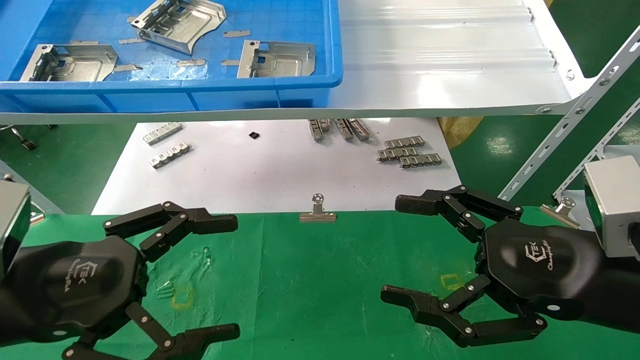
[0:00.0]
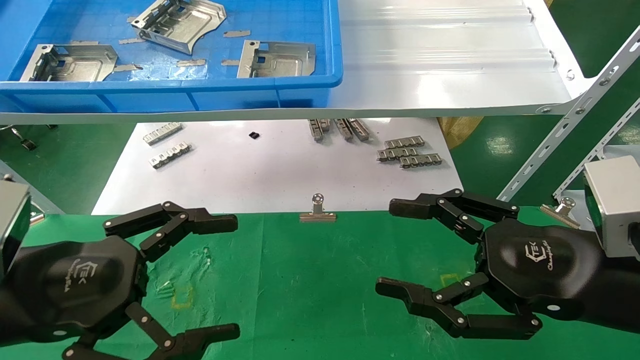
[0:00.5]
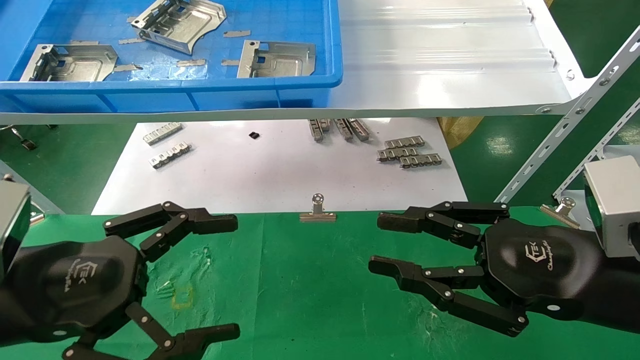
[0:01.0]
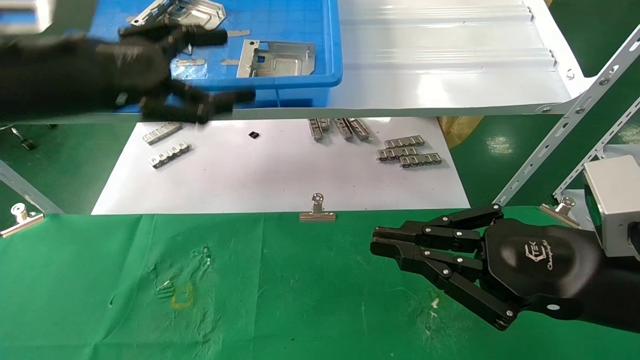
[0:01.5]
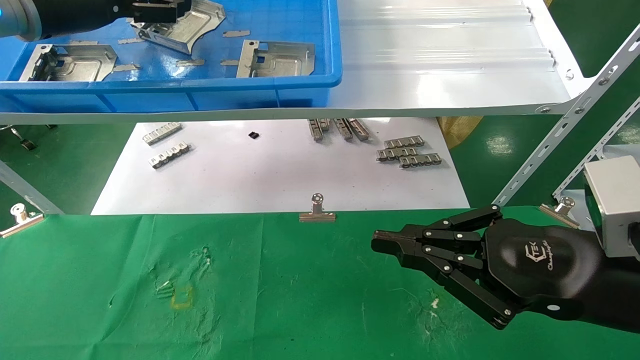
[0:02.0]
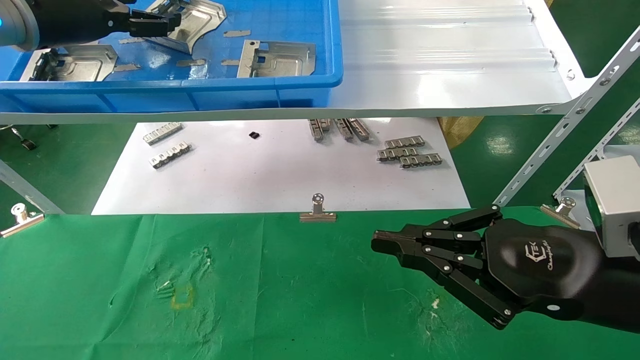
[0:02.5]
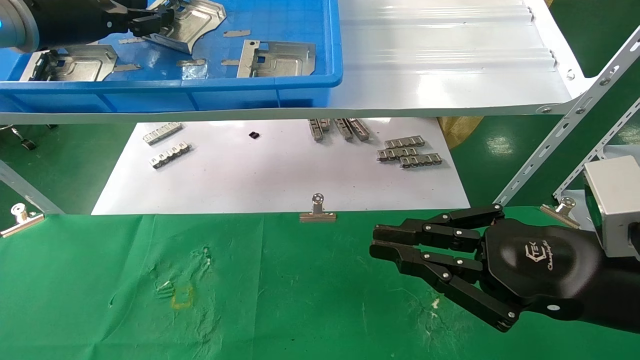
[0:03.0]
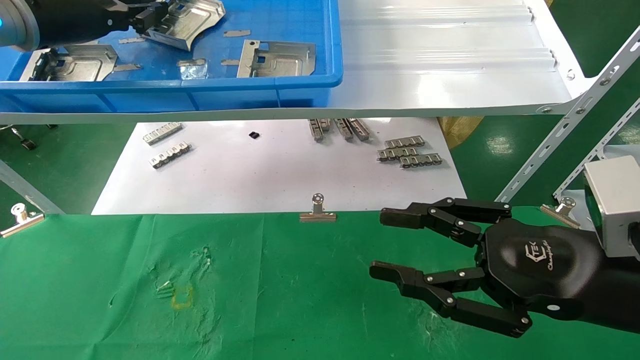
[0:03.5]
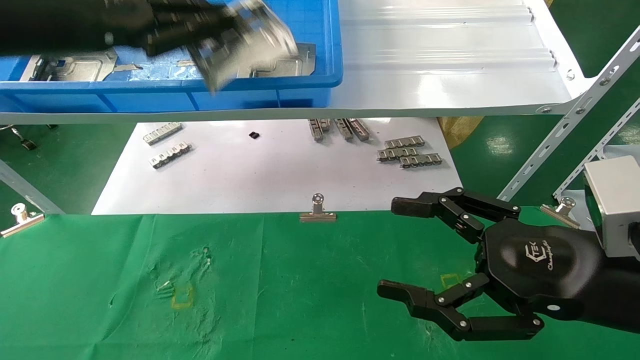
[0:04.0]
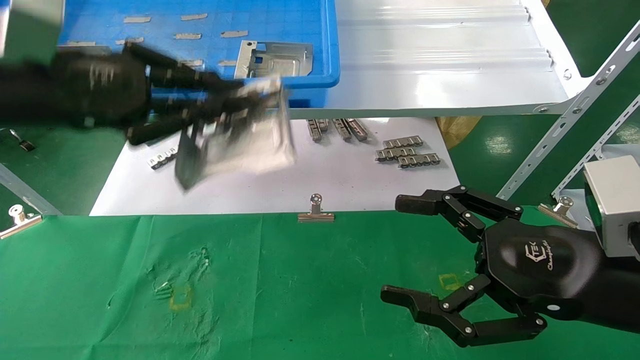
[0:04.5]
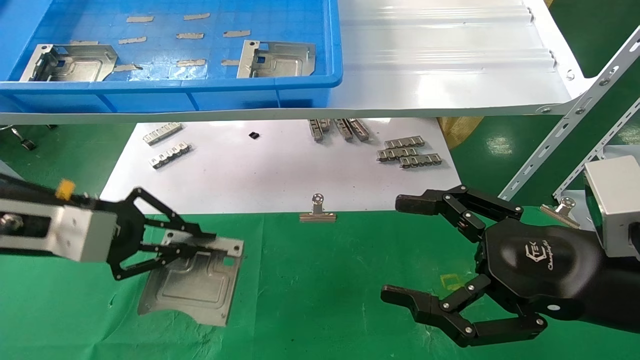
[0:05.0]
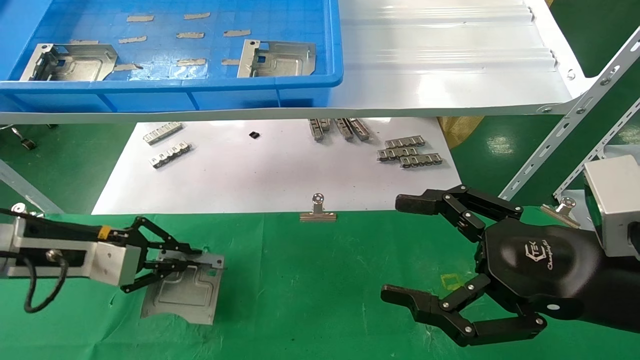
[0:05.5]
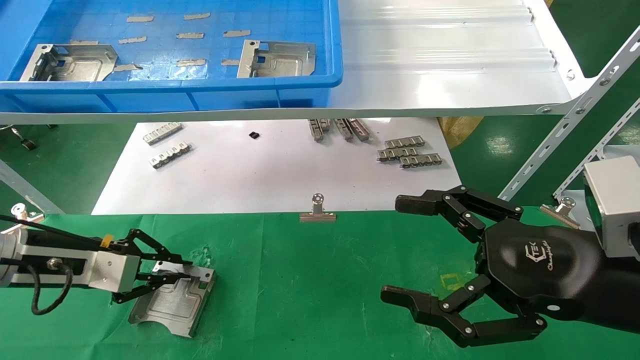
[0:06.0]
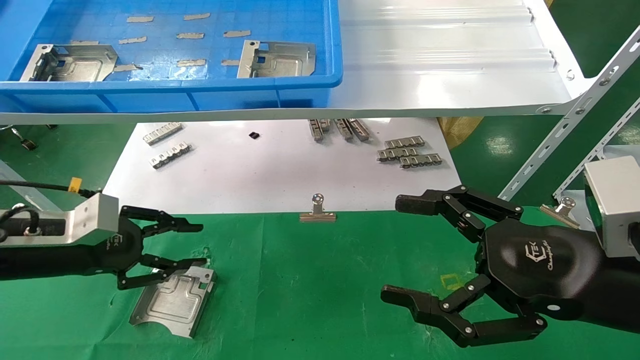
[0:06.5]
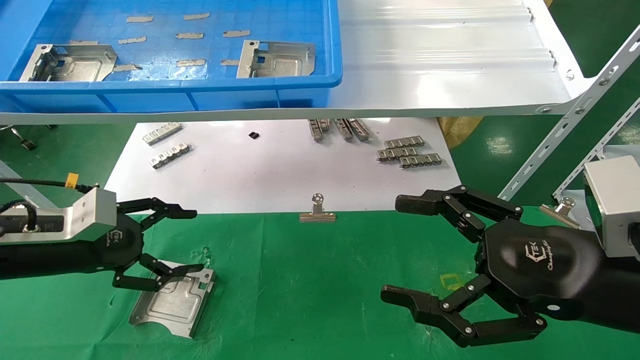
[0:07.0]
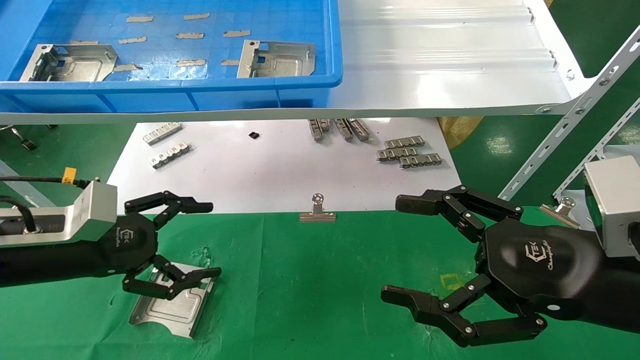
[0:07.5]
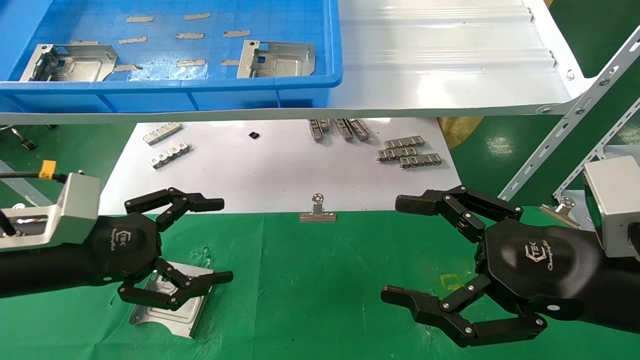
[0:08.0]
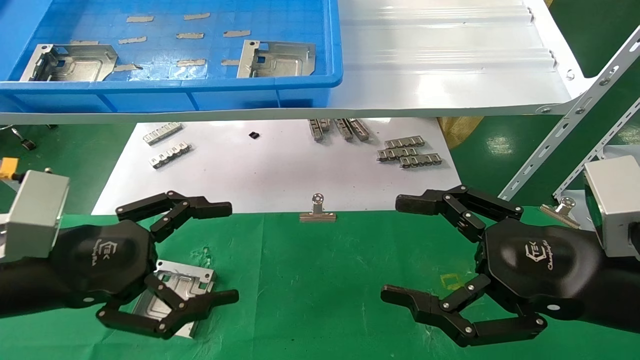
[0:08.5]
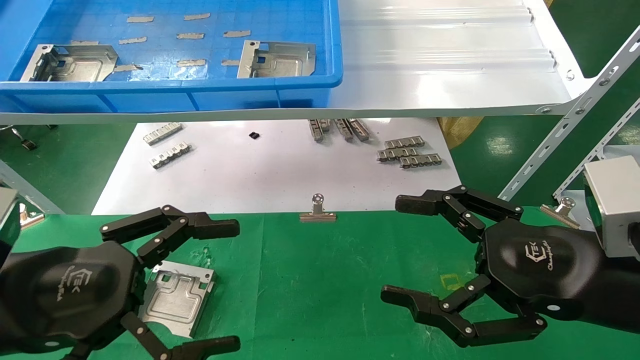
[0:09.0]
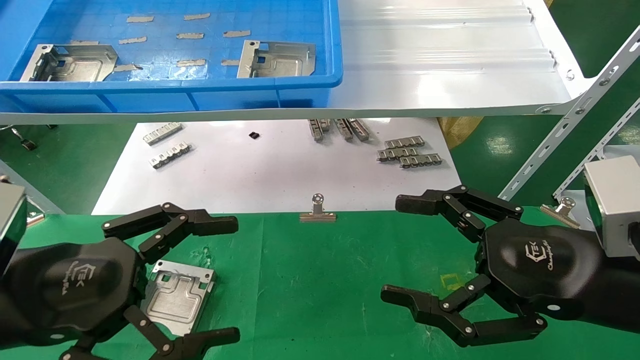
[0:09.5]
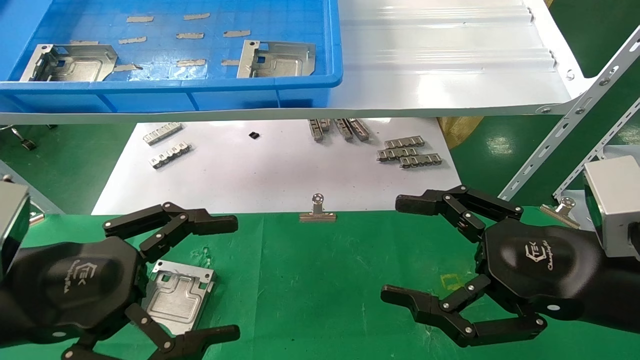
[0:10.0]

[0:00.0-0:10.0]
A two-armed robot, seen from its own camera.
Task of the whole recording: use the mechanical arm to pick up the parts and place them on the table.
Step, 0:01.5 to 0:03.5: Pick up the hard drive bracket from the feeding area.
Step, 0:04.0 to 0:06.0: Place the hard drive bracket into the box.
0:00.0 to 0:02.0: The left gripper goes about 30 cm upward and forward; the right gripper closes.
0:02.0 to 0:04.0: The left gripper shifts about 5 cm backward, and closes; the right gripper opens its fingers.
0:04.0 to 0:06.0: The left gripper moves downward, some 25 cm.
0:06.0 to 0:08.0: The left gripper goes roughly 10 cm backward and to the right, and opens.
0:08.0 to 0:10.0: The left gripper goes some 10 cm backward.

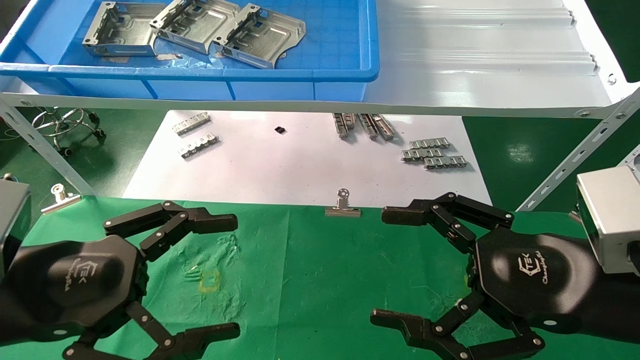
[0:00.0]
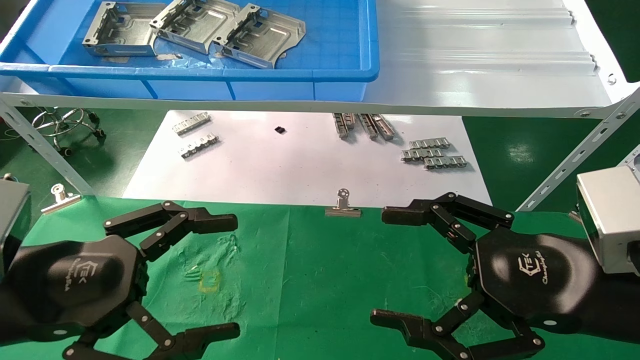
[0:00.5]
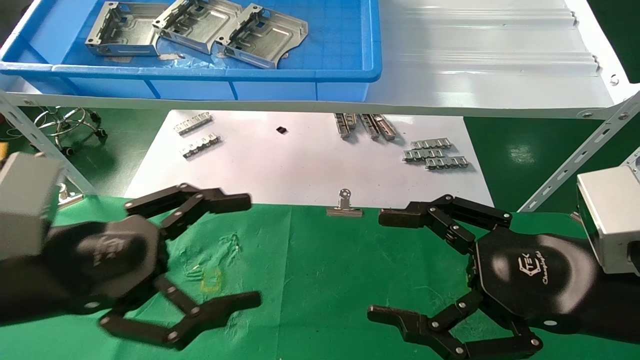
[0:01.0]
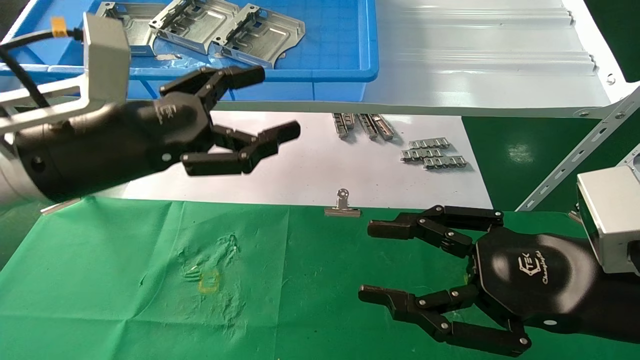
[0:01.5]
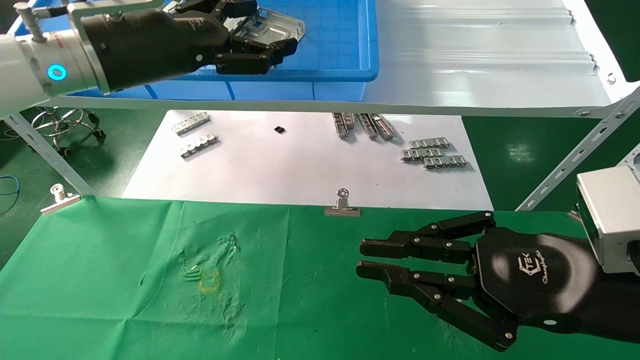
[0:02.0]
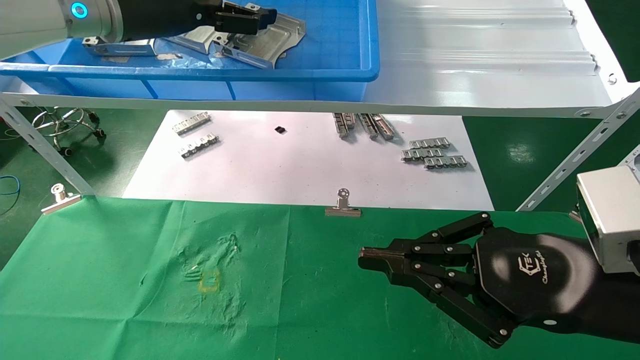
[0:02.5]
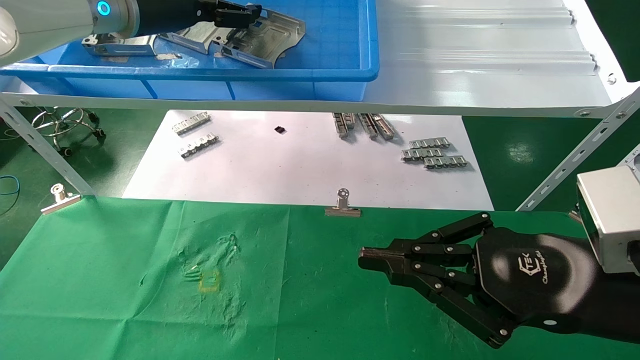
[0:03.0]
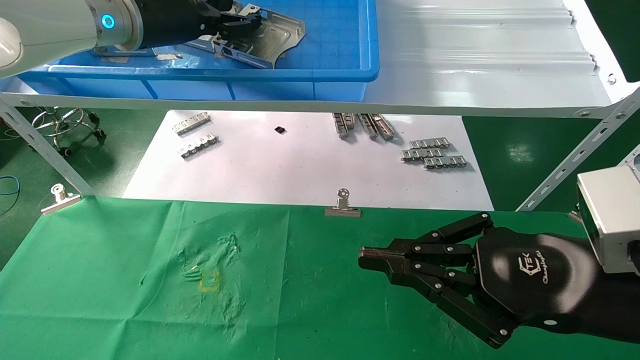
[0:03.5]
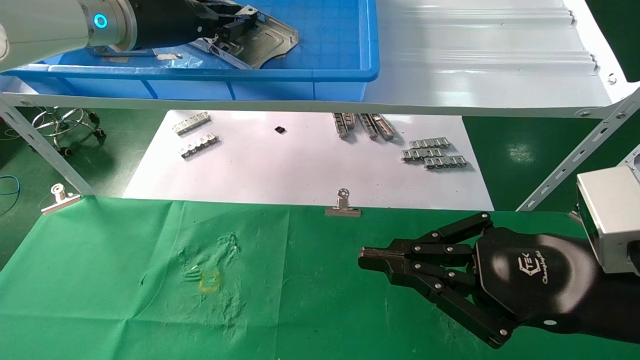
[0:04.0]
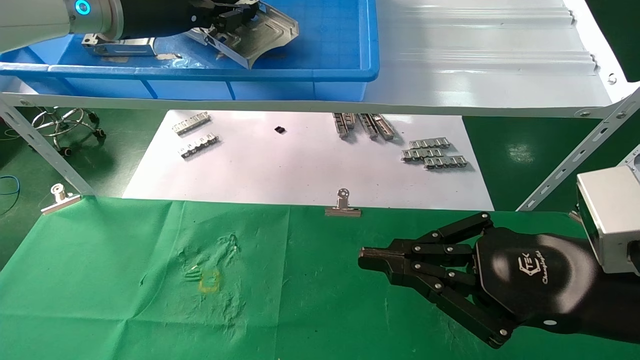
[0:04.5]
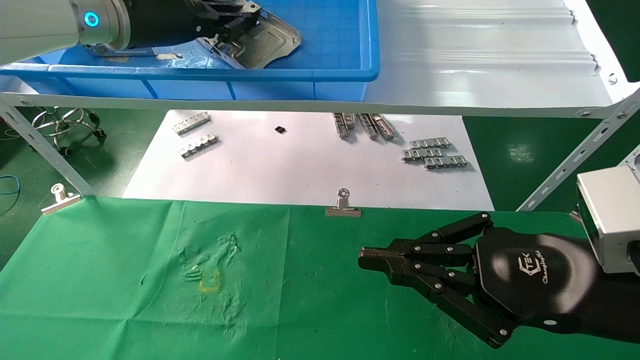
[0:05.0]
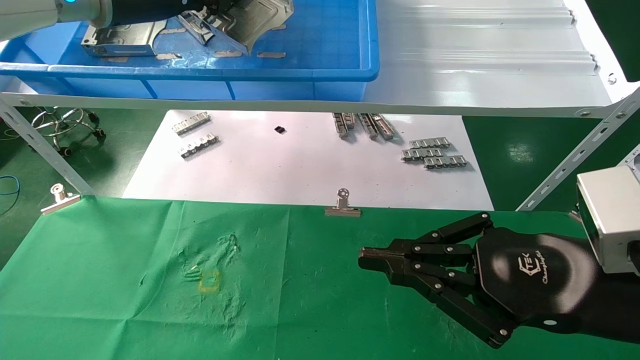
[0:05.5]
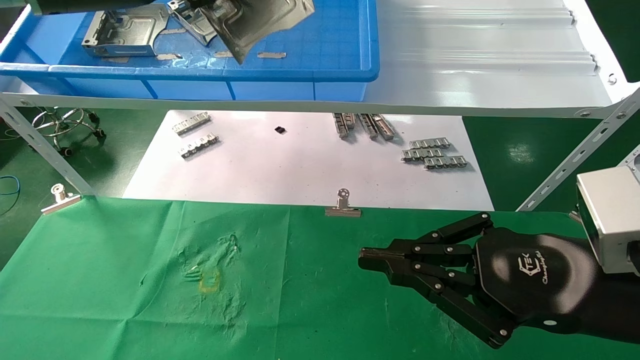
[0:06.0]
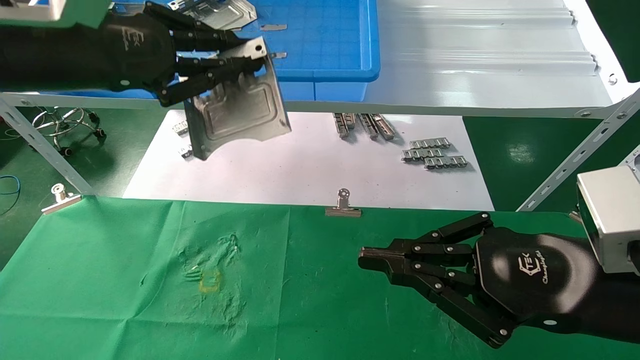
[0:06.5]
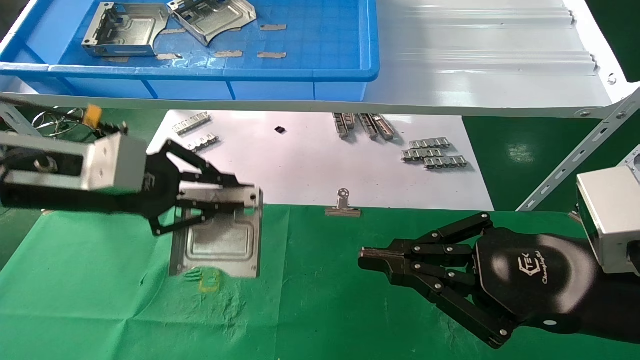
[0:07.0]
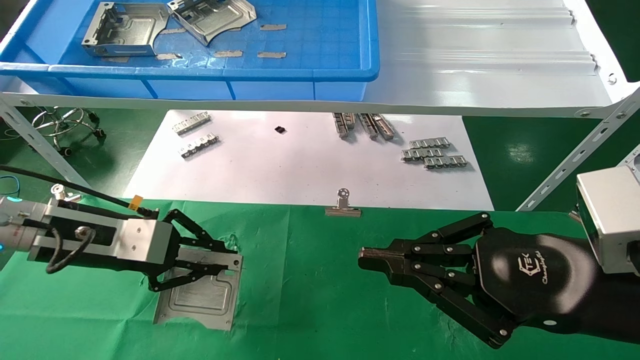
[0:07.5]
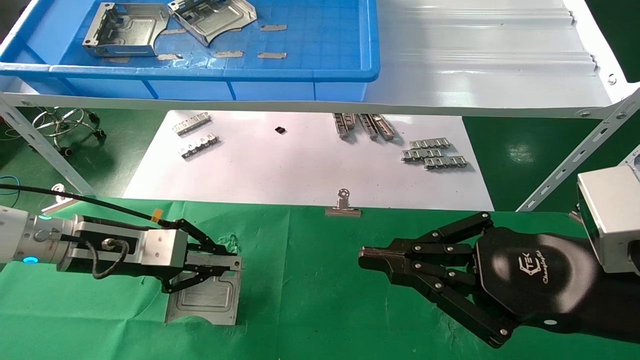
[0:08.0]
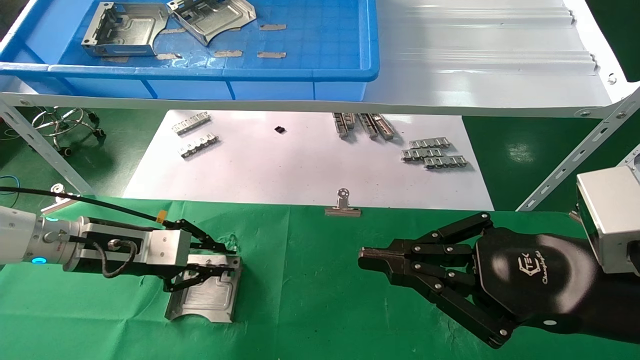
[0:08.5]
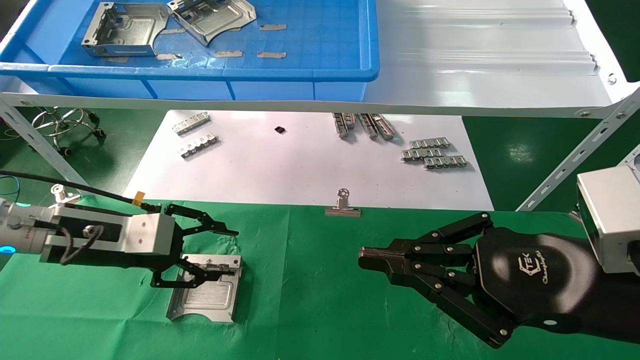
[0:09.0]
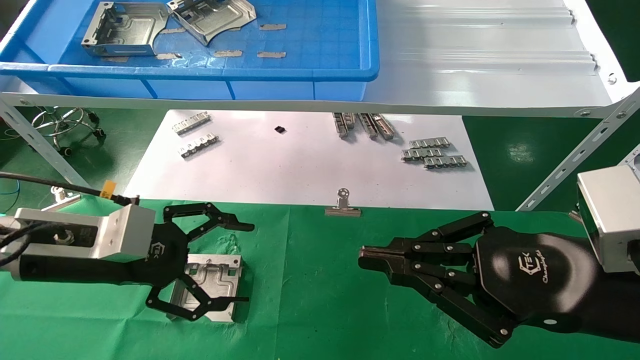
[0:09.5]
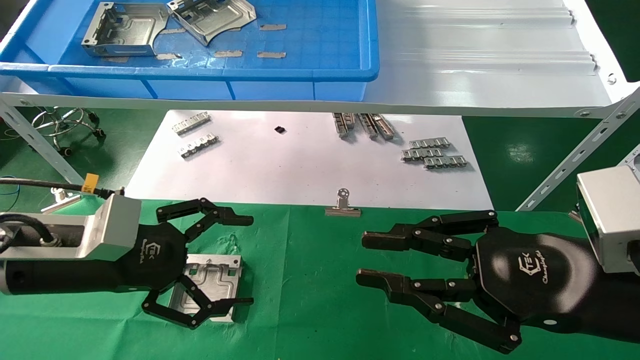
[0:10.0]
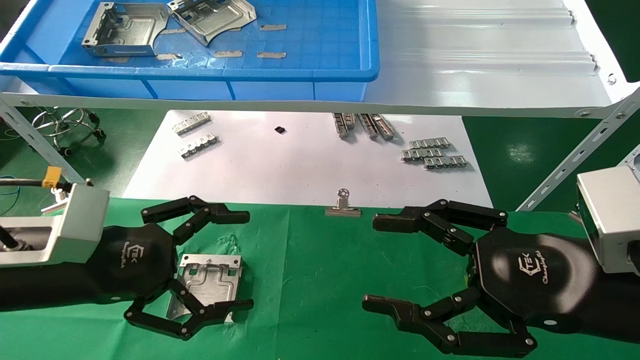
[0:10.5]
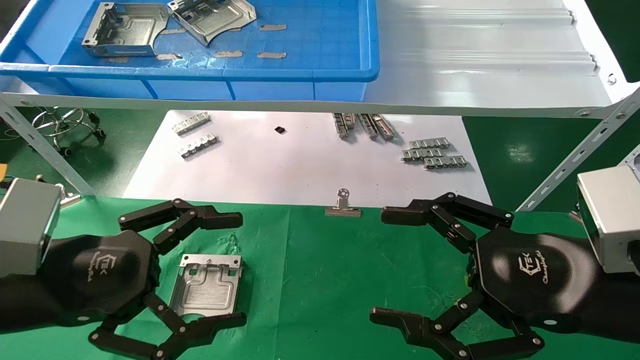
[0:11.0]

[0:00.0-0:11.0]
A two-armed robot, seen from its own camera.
Task of the whole recording: use the mechanical arm to pick up the parts and place them on the table.
Step, 0:01.5 to 0:04.0: Pick up the hard drive bracket from the feeding area.
Step, 0:04.5 to 0:08.5: Place the hard drive bracket into the box.
0:00.0 to 0:02.0: The right gripper closes up. The left gripper is displaced upward and forward by about 25 cm.
0:02.0 to 0:03.5: The left gripper is displaced forward by roughly 5 cm, and closes its fingers.
0:03.5 to 0:05.5: The left gripper closes up.
0:05.5 to 0:07.5: The left gripper heads downward, covering about 25 cm.
0:07.5 to 0:09.0: The grippers move only a little.
0:09.0 to 0:11.0: The left gripper heads backward, covering approximately 10 cm, and opens its fingers, while the right gripper opens.
